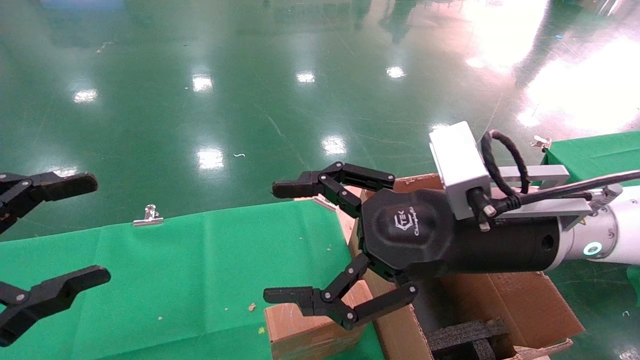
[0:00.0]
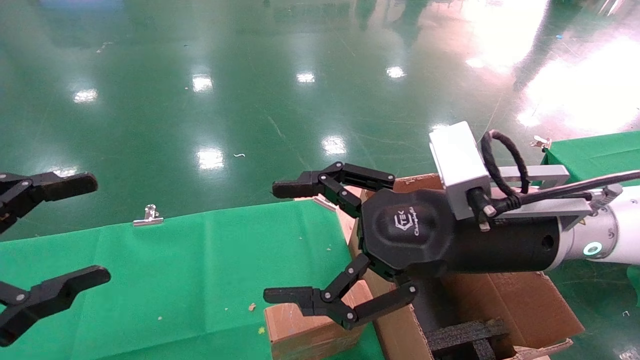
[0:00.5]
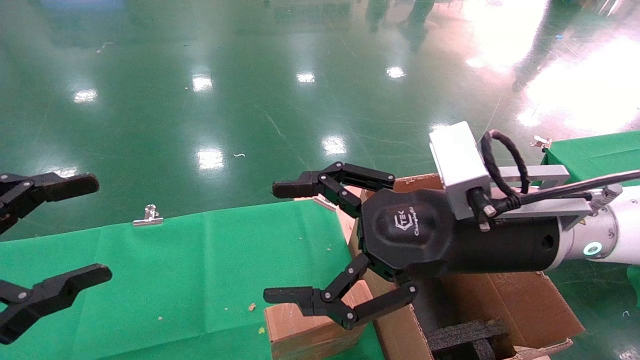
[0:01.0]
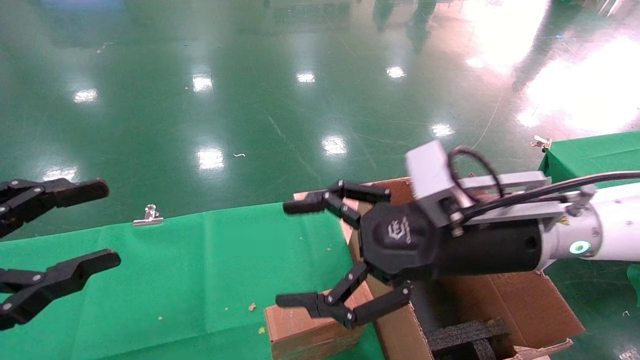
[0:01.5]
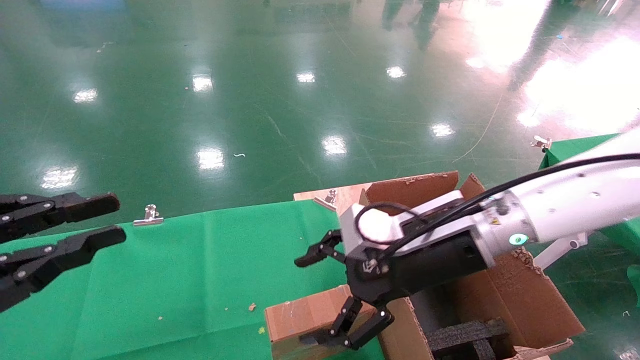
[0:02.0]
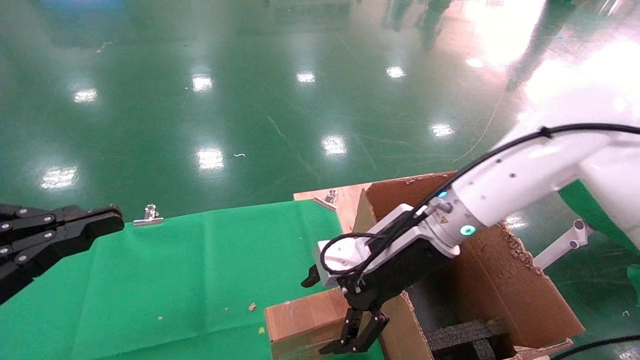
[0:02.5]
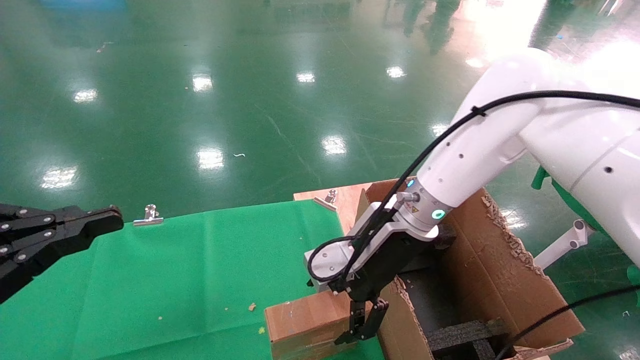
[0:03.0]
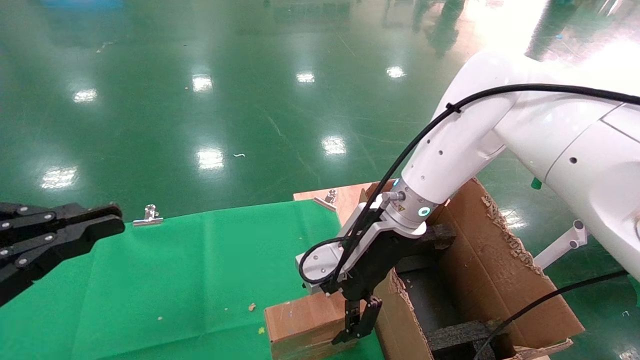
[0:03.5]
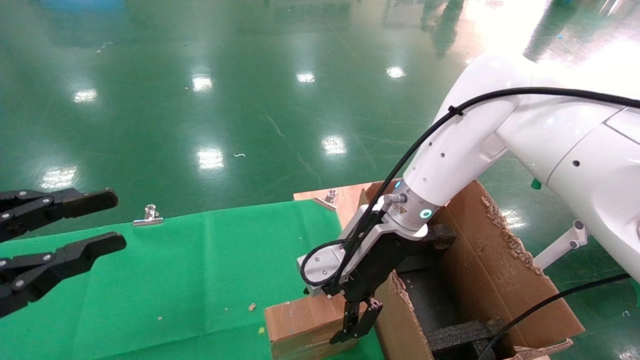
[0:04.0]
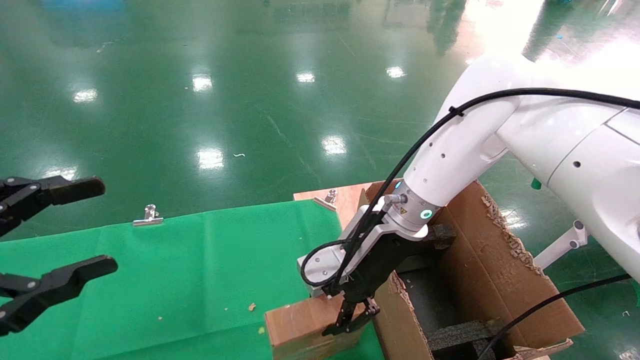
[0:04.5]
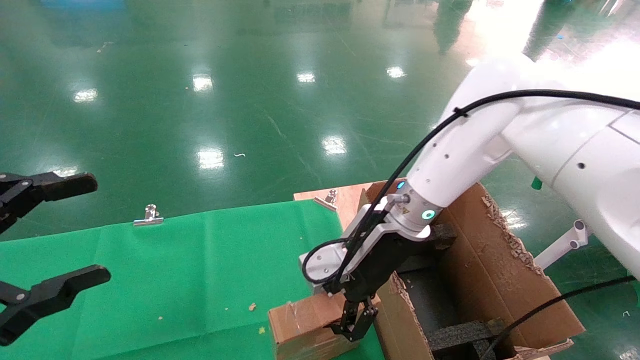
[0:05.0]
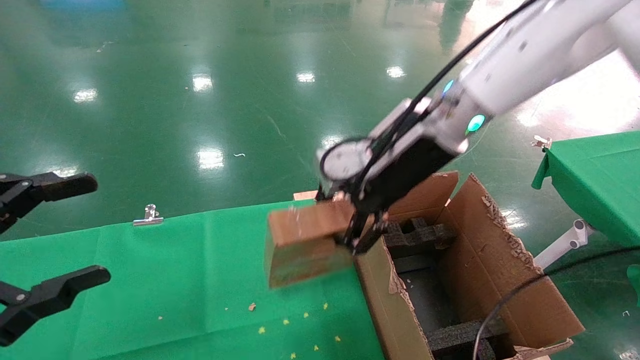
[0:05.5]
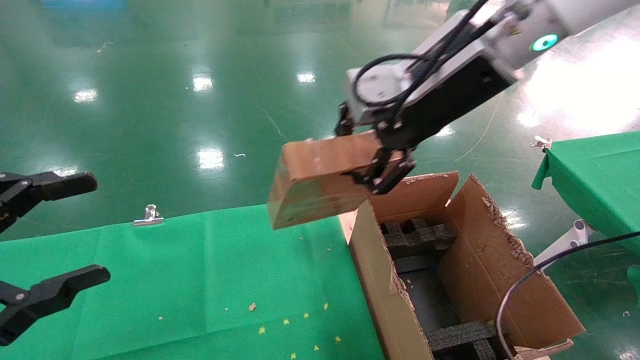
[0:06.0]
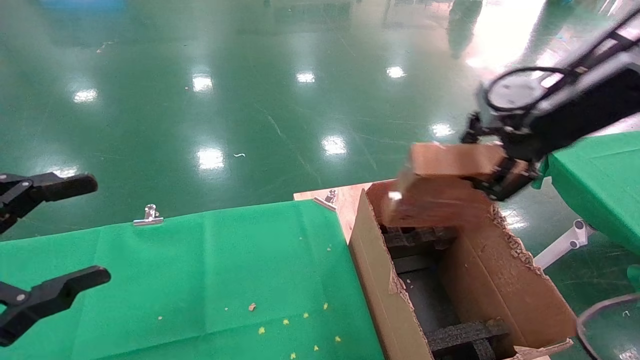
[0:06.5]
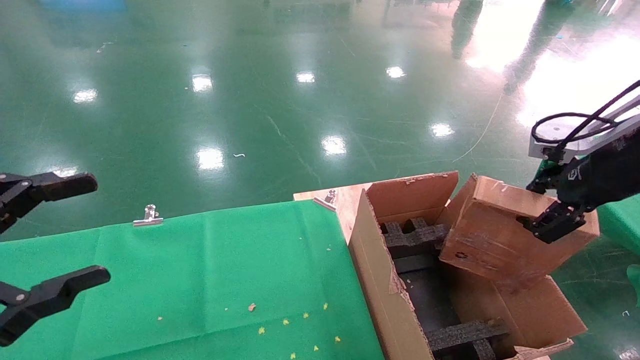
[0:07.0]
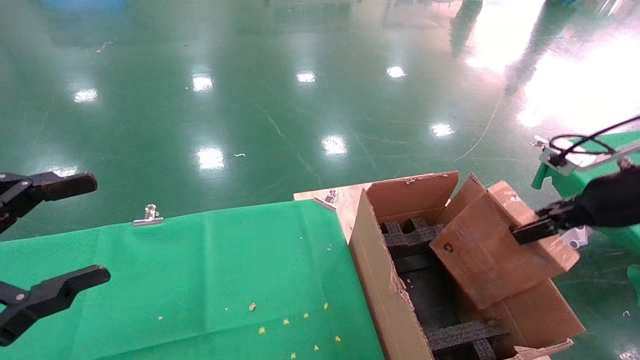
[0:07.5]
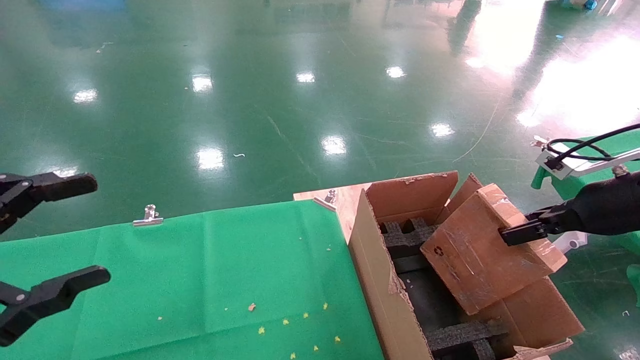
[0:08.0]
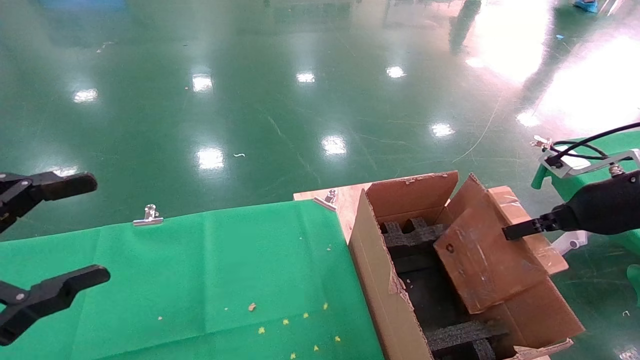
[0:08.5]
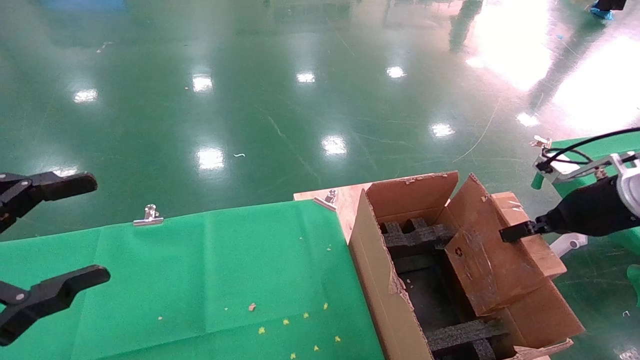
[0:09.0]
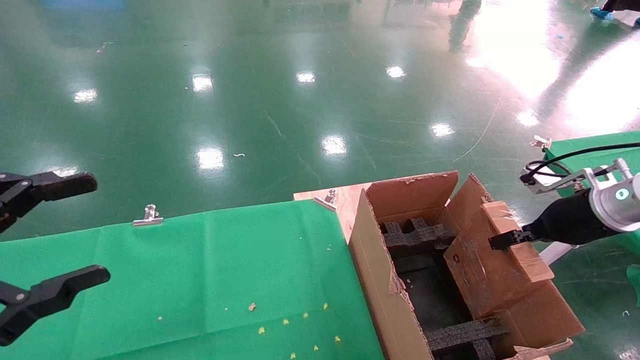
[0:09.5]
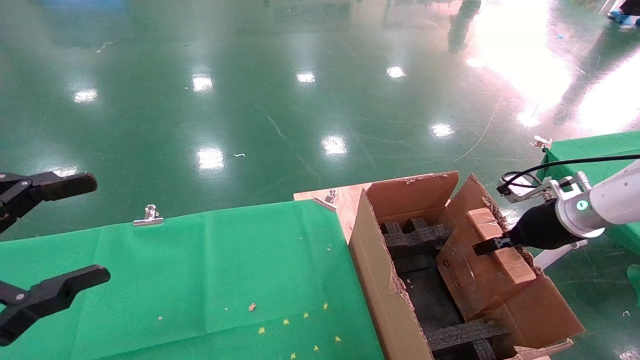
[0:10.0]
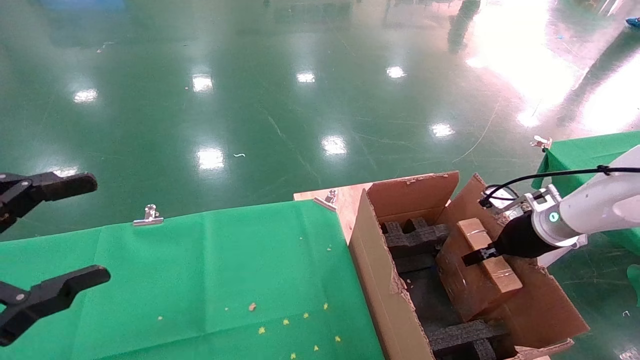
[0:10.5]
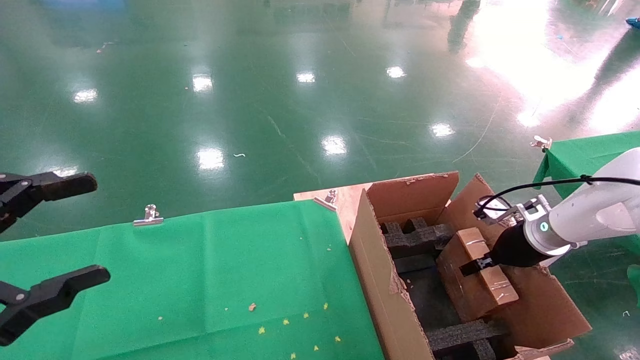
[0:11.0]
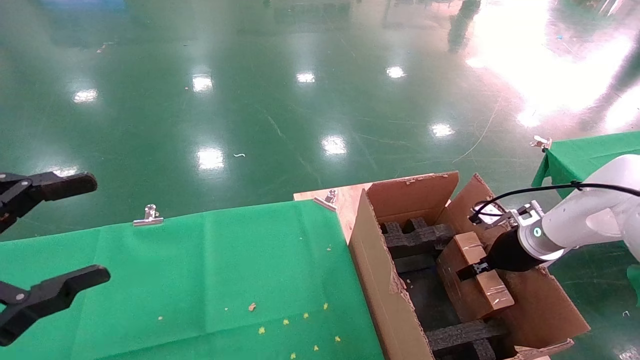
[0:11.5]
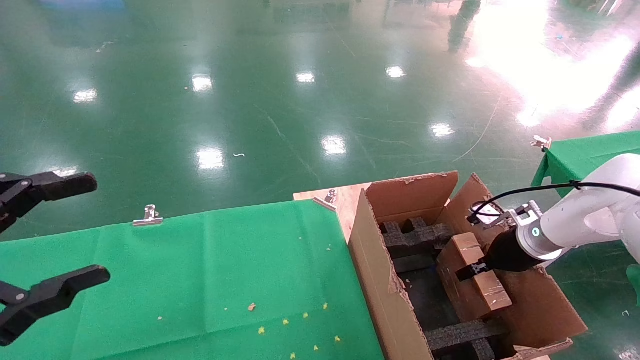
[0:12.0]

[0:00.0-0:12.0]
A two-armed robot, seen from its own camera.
Task of the whole recording: using a robotic arm to pick up a cardboard box and palace it the carton.
Step, 0:01.5 to 0:04.5: Pick up the mouse and the power cord paper box.
0:00.0 to 0:02.0: The left gripper closes up, while the right gripper shifts roughly 5 cm forward.
0:02.0 to 0:04.0: The right gripper moves forward, roughly 5 cm.
0:04.0 to 0:06.0: The left gripper opens; the right gripper shifts about 20 cm upward, and closes up.
0:06.0 to 0:08.0: The right gripper goes roughly 30 cm to the right and downward.
0:08.0 to 0:10.0: The right gripper heads forward and downward, covering about 15 cm.
0:10.0 to 0:12.0: The right gripper is displaced downward by some 5 cm.

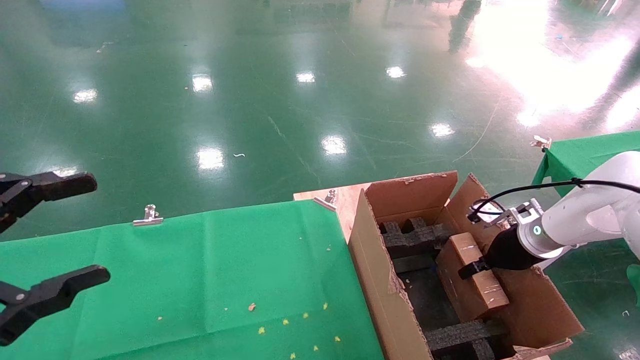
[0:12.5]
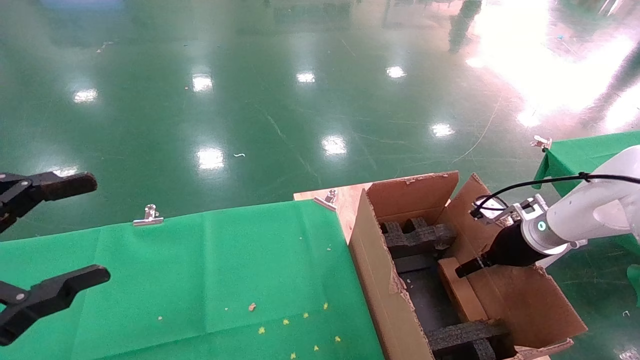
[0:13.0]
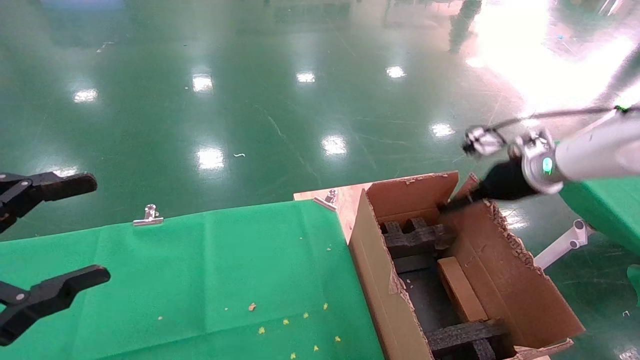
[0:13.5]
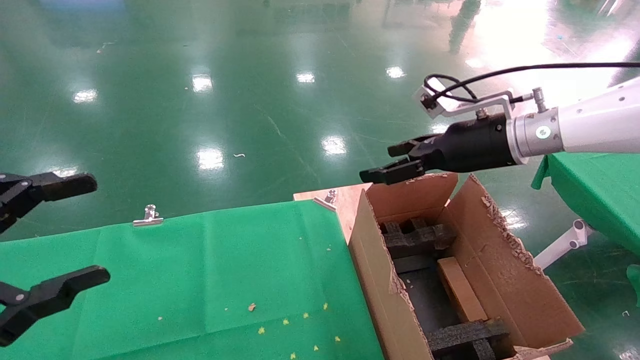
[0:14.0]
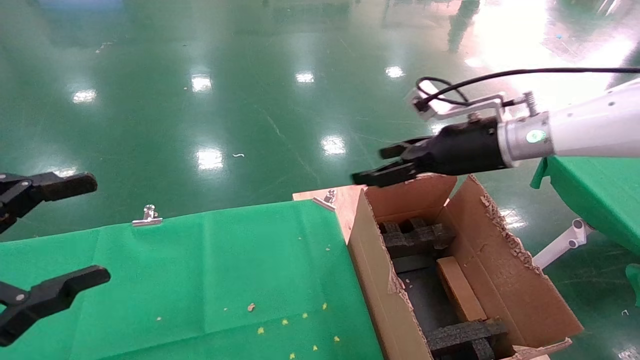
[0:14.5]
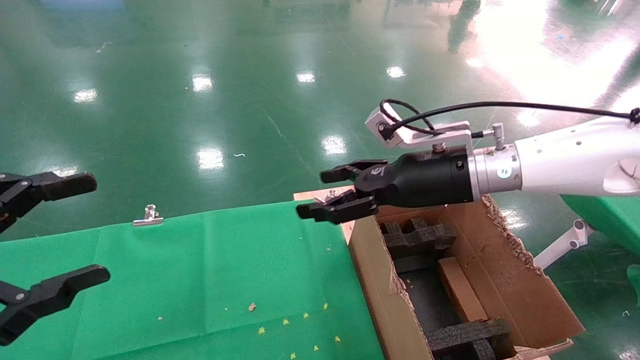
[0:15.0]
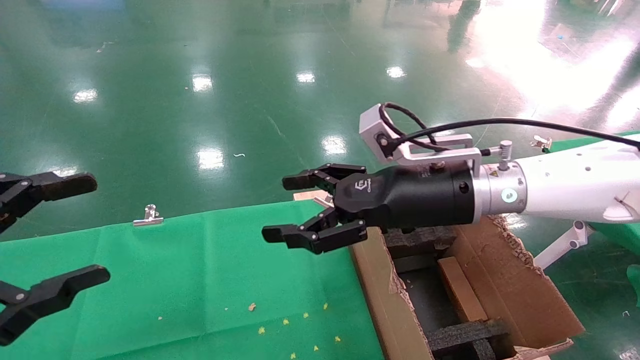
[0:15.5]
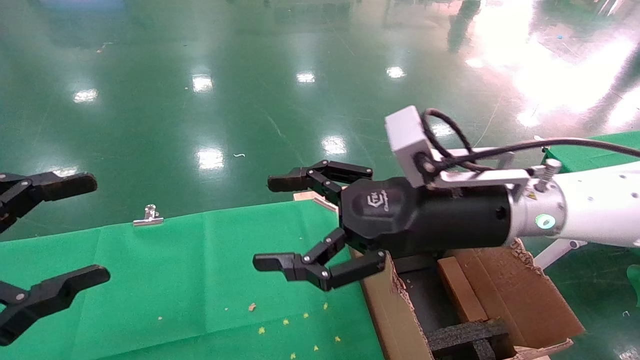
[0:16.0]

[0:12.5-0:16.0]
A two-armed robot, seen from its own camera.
Task of the whole recording: using a robotic arm to pick up a cardboard box and palace it the carton.
0:12.5 to 0:14.5: The right gripper is displaced upward and to the left by roughly 20 cm, and opens up.
0:14.5 to 0:16.0: The right gripper shifts roughly 15 cm backward and to the left.
